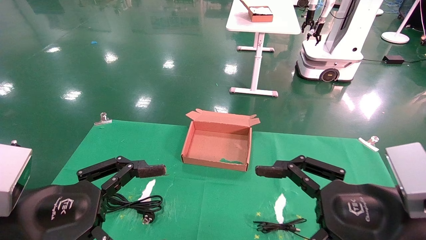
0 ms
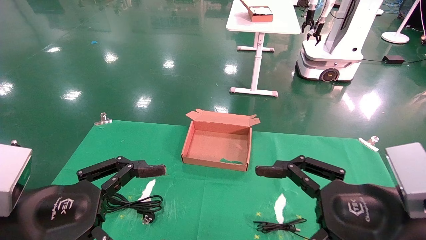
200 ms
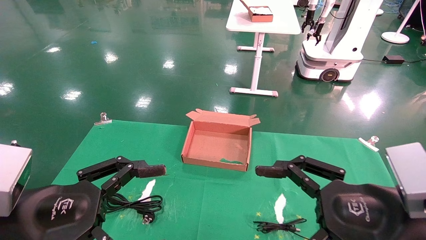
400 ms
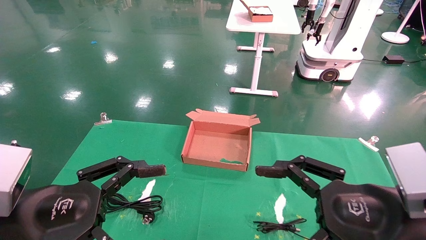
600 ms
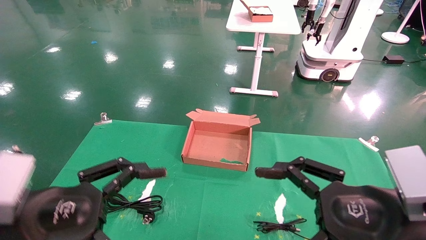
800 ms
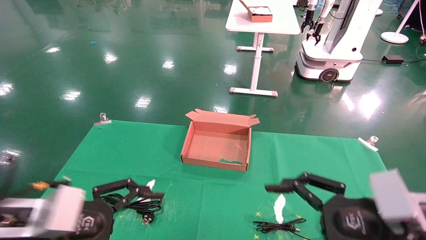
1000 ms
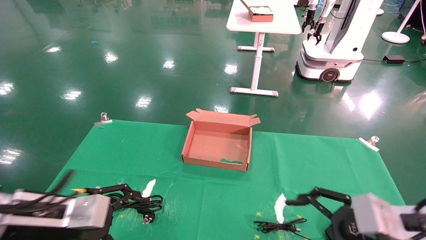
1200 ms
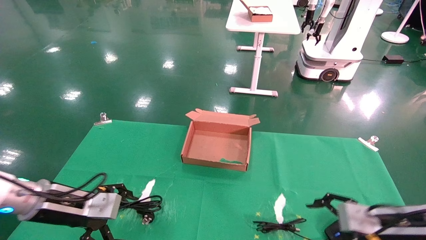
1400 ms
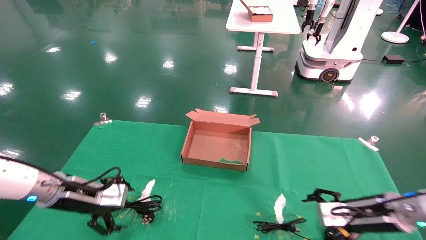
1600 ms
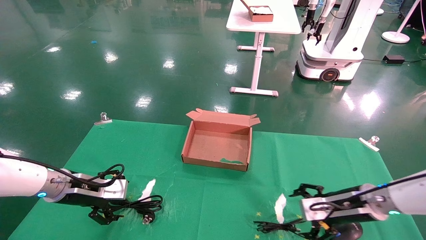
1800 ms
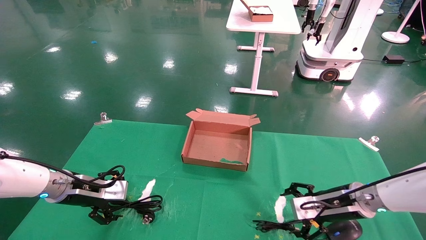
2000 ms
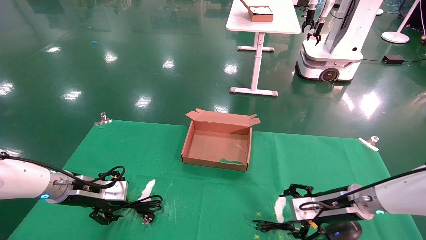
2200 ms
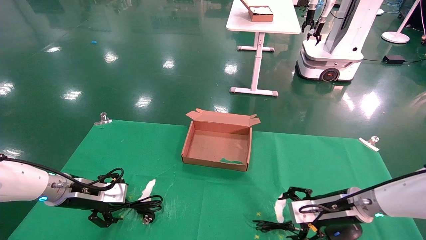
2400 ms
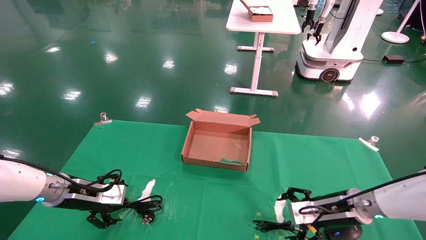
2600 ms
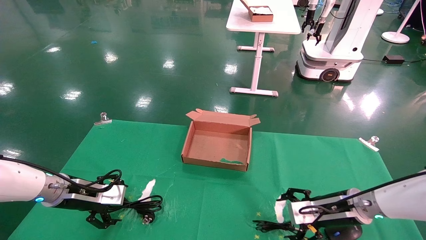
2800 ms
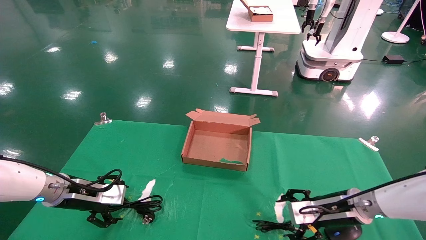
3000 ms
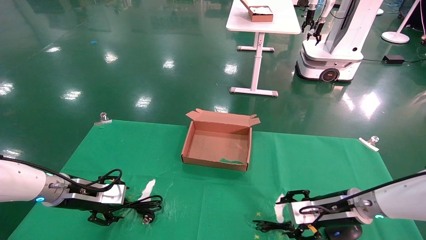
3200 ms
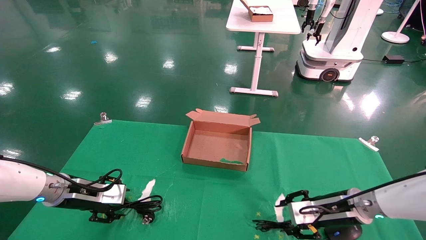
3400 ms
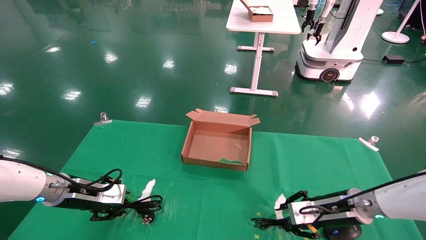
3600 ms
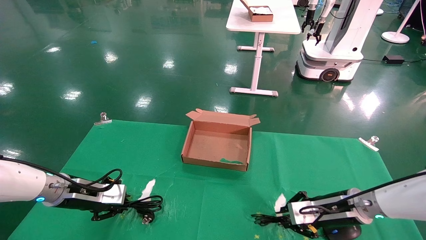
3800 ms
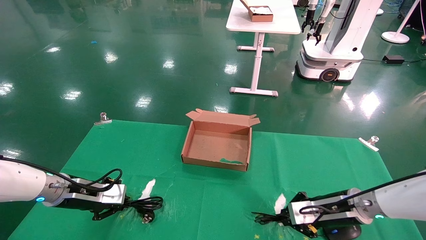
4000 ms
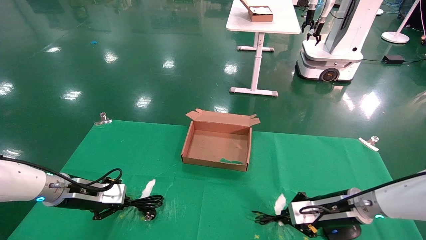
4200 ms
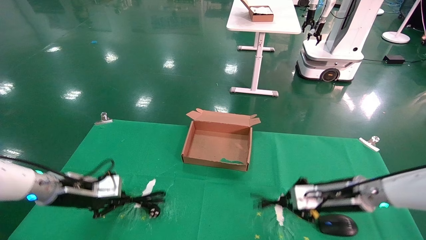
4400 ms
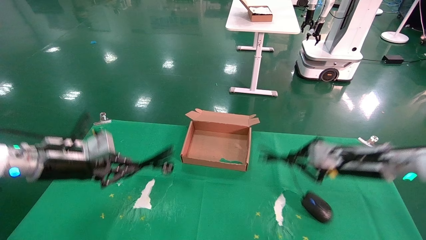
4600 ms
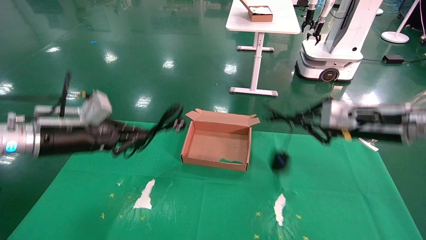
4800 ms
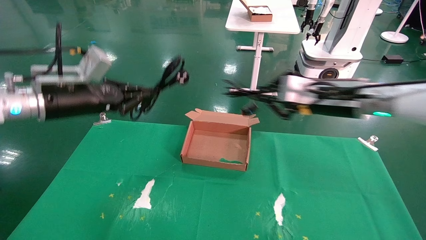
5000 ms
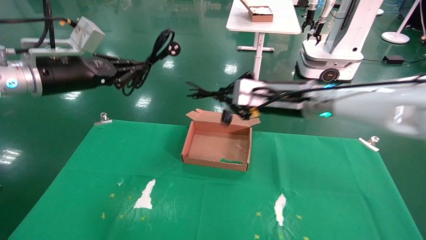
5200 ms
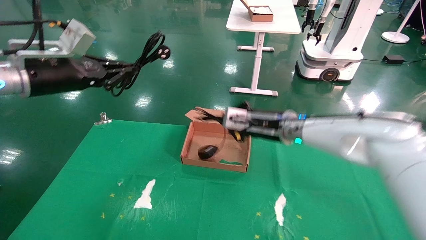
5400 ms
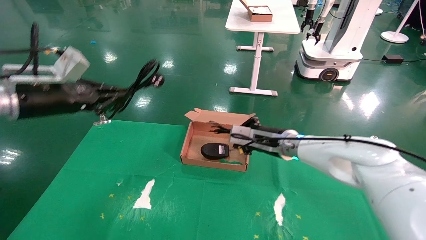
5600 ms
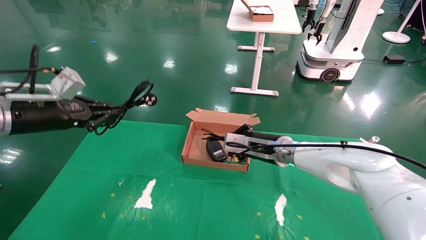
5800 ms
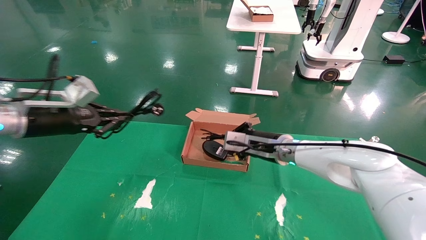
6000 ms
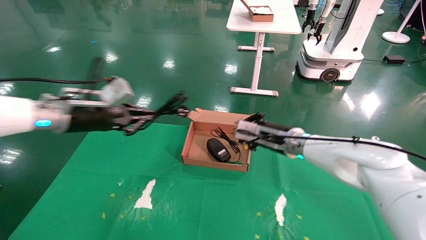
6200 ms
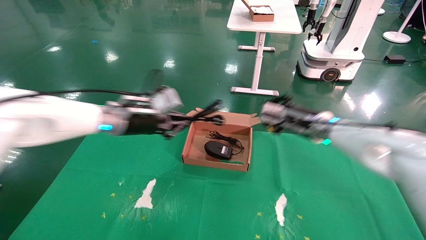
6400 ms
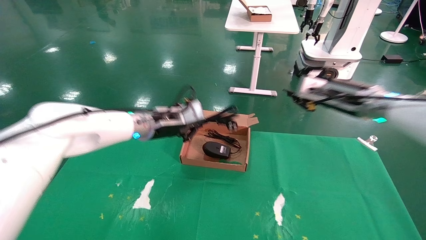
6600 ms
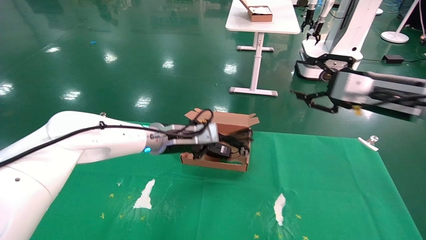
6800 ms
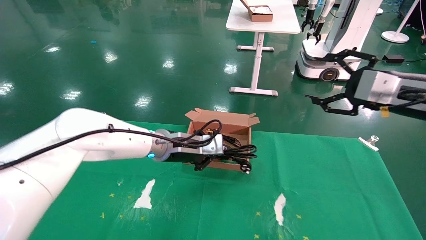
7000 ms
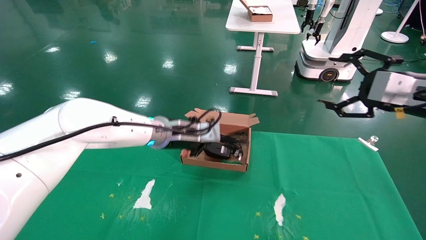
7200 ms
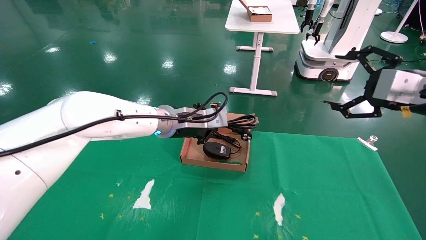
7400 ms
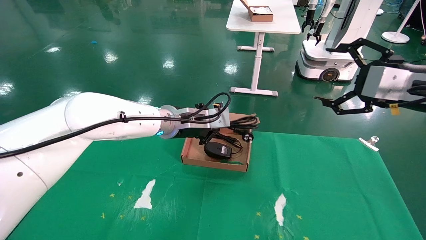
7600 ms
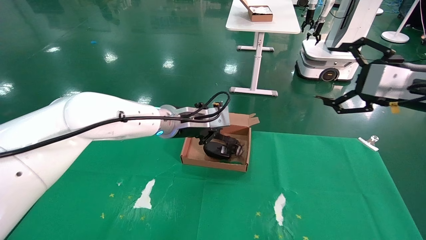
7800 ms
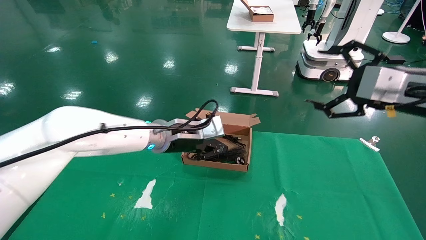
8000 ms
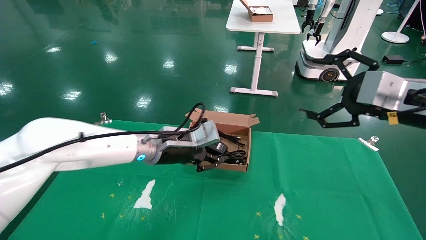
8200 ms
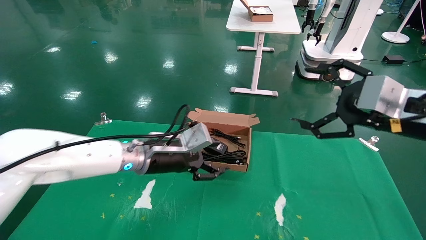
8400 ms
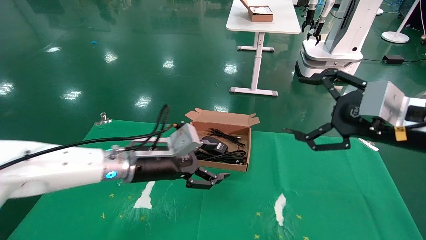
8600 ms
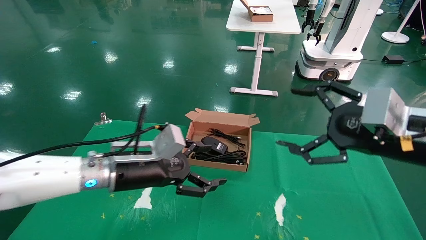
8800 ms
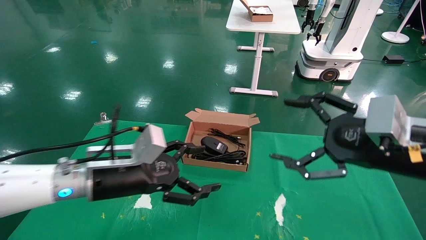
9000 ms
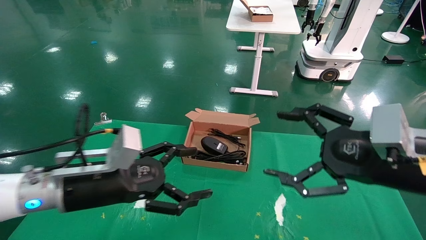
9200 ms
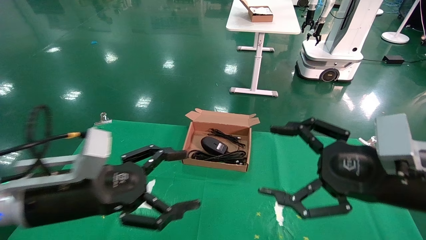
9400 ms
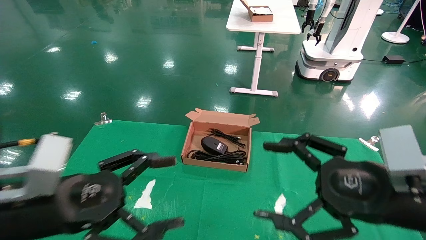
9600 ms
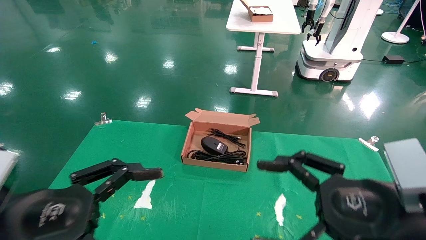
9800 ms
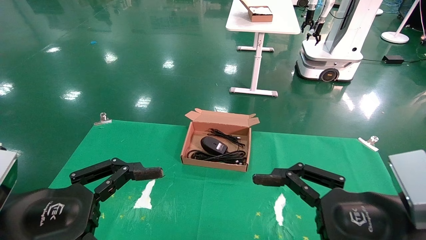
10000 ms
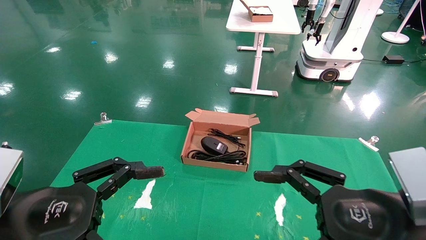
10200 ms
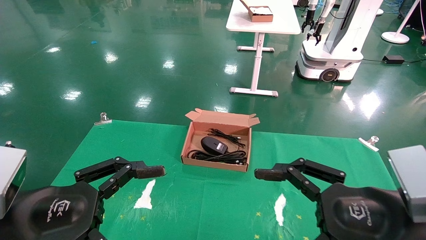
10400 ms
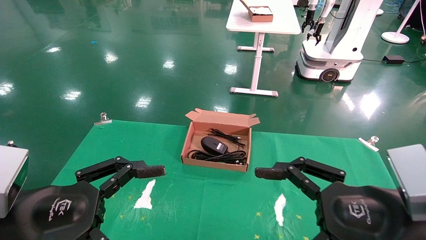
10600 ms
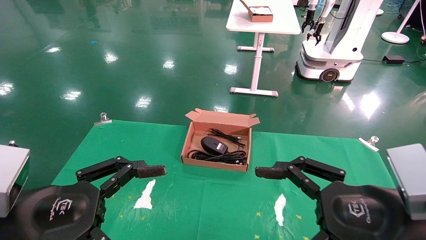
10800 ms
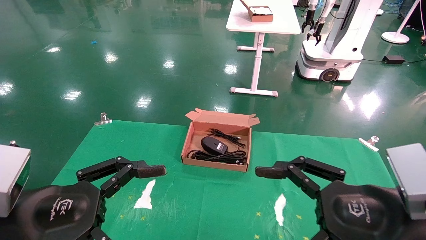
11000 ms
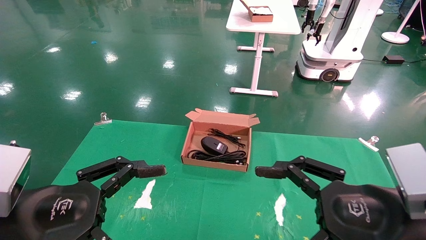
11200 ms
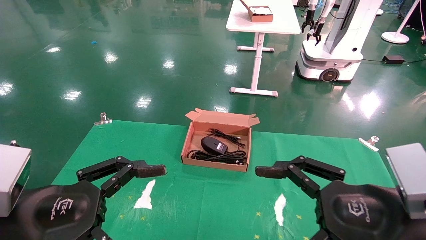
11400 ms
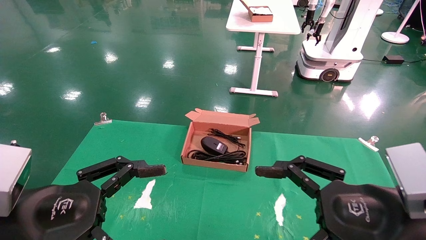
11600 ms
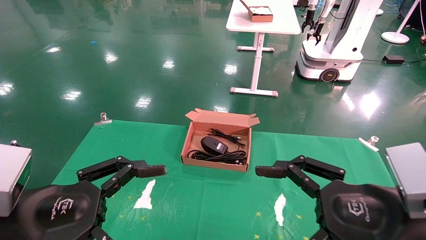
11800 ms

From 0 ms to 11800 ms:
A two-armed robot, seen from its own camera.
Step, from 1000 ms to 4000 ms: Grab and lift both the mouse and power cord from the accessory packaging area at the same time.
Step, from 4200 ms to 8000 ms: Place the mouse and power cord into the box.
From 0 ms to 1400 ms: The right gripper moves forward, downward and to the right, some 20 cm. The left gripper moves forward, about 15 cm.
From 1400 ms to 3000 ms: The grippers both shift forward by some 10 cm.
From 3000 ms to 4400 ms: The left gripper closes its fingers. Meanwhile the right gripper heads upward, covering some 5 cm, and closes up.
From 4400 ms to 6000 ms: The left gripper moves upward, about 15 cm; the right gripper heads to the left and forward, covering roughly 15 cm.
From 6000 ms to 7400 ms: The right gripper moves to the right, backward and upward, approximately 30 cm, and opens its fingers. Meanwhile the left gripper travels to the right by some 25 cm.
From 7400 ms to 8800 ms: The left gripper shifts some 15 cm backward, to the left and downward, and opens. Meanwhile the right gripper is displaced to the left, backward and downward by some 10 cm.
From 8800 ms to 10400 ms: The left gripper heads backward and to the left, covering roughly 20 cm. Meanwhile the right gripper shifts about 10 cm backward and downward.
From 10400 ms to 11800 ms: Both grippers stay put.

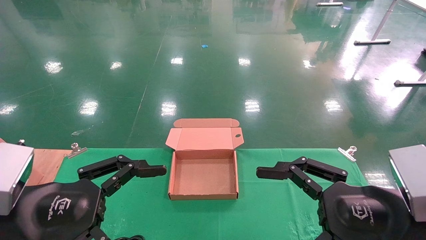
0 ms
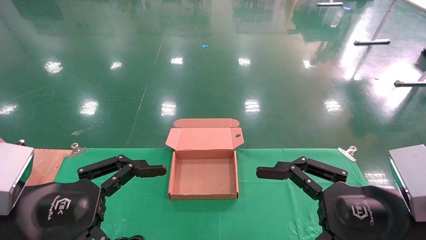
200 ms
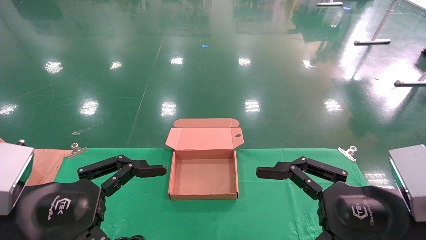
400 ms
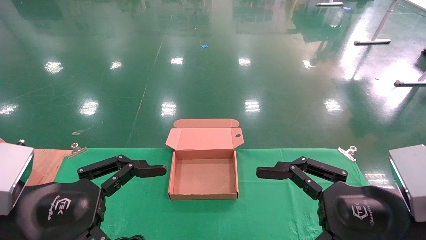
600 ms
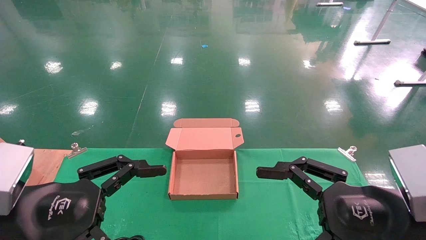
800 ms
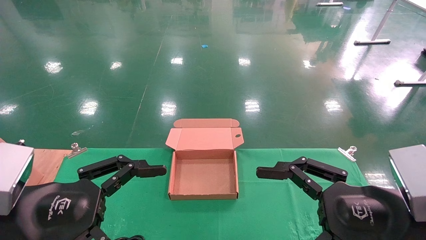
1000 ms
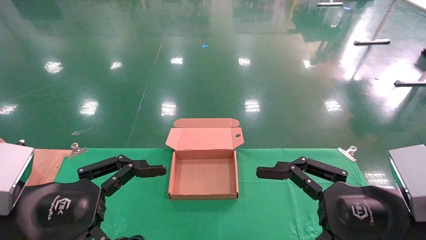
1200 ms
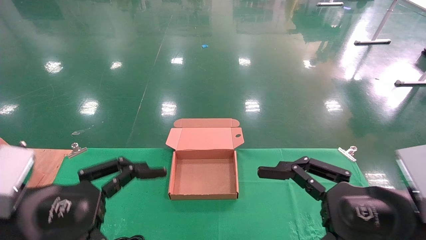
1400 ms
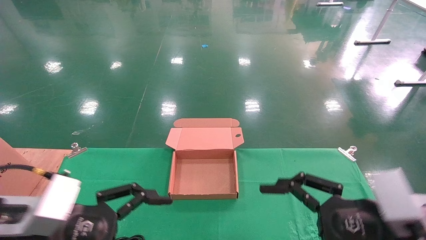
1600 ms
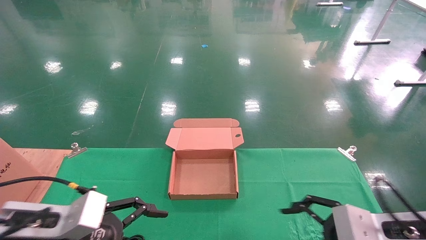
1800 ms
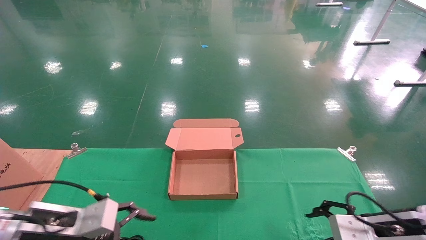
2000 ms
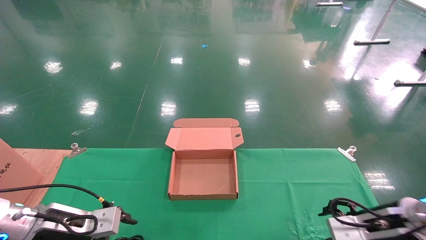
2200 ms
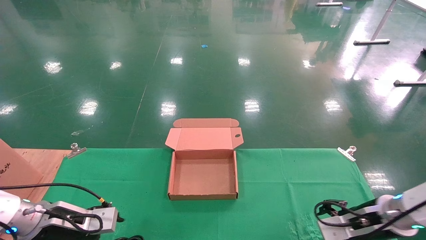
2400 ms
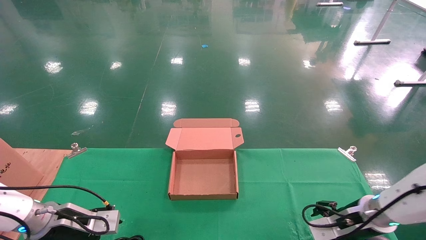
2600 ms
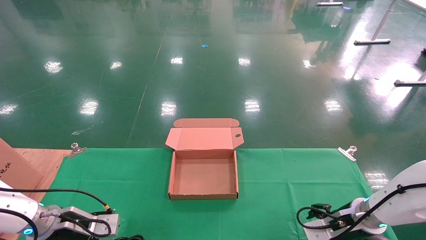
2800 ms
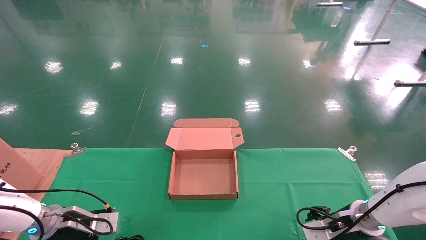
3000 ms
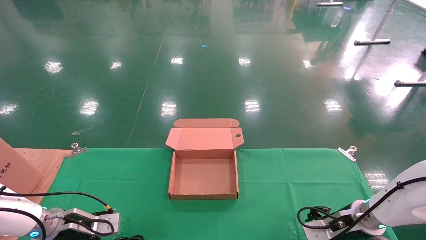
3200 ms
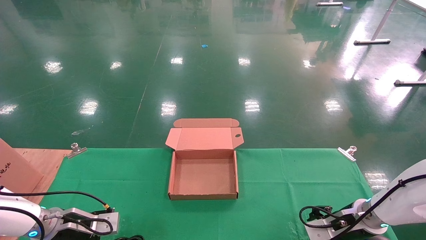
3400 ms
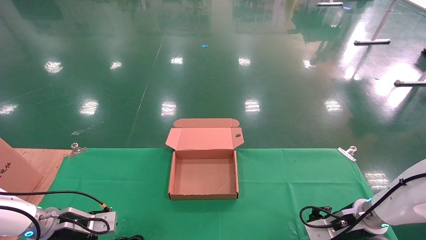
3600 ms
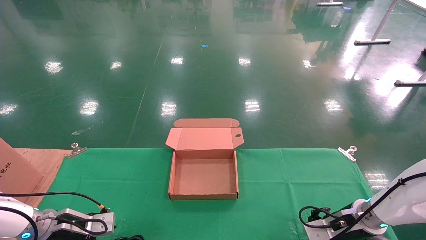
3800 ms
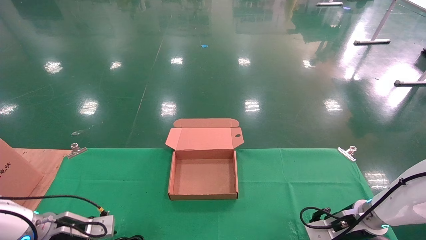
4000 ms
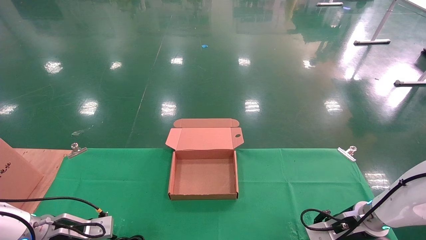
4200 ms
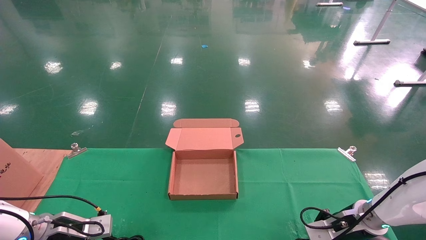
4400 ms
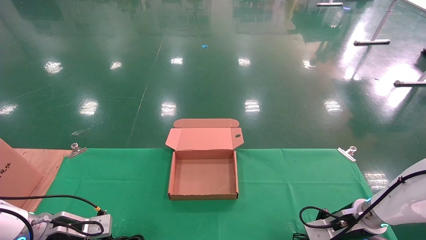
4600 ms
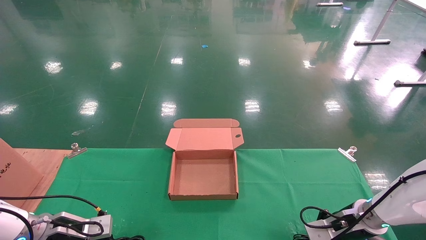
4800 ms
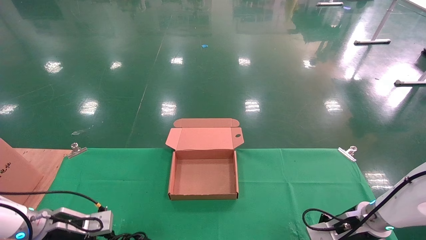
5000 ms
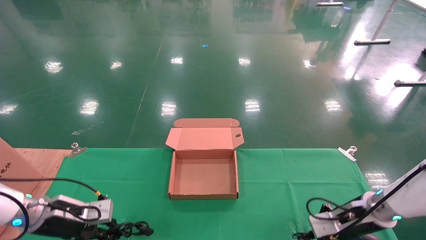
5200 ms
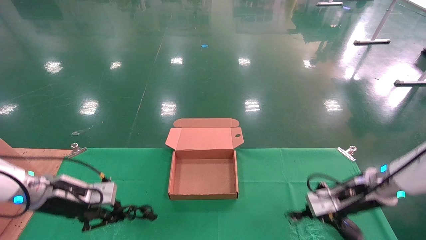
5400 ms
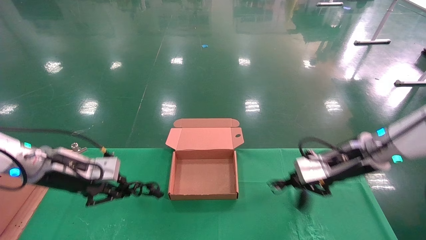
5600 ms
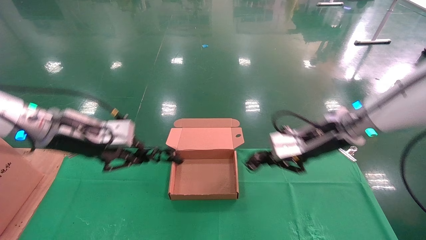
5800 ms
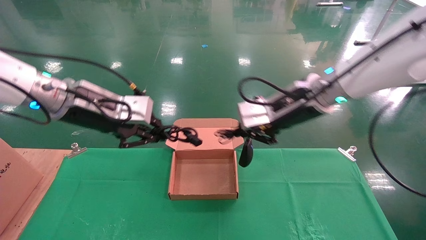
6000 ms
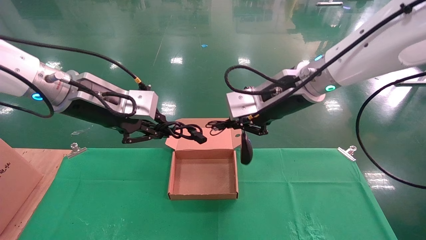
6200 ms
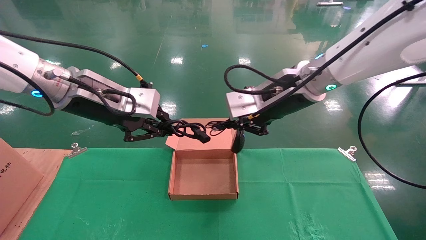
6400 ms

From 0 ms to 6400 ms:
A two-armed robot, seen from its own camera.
Step, from 1800 ms to 6000 ms: Grab and lift both the mouse and power cord from the accessory packaging area at the same time.
From 0 ms to 1600 ms: The right gripper ends up roughly 5 cm from where it was.
From 1600 ms to 3200 ms: The right gripper shifts some 20 cm forward and downward. The left gripper heads forward, downward and to the left, covering roughly 25 cm.
From 3200 ms to 4800 ms: The right gripper closes. Meanwhile the left gripper closes up.
From 4800 ms to 6400 ms: The left gripper moves upward and to the right, roughly 35 cm. The right gripper shifts some 35 cm upward and to the left.
